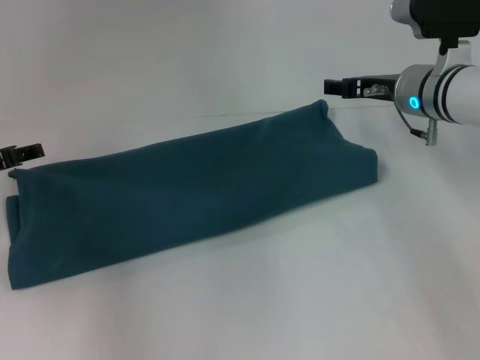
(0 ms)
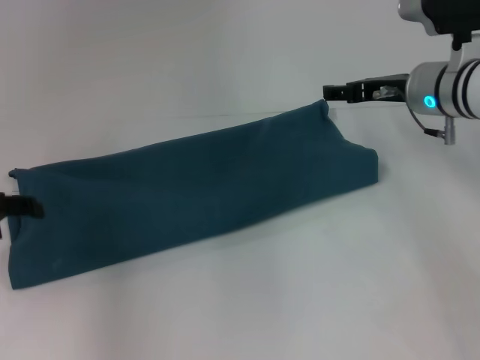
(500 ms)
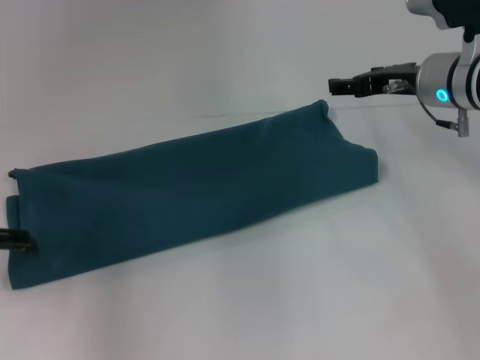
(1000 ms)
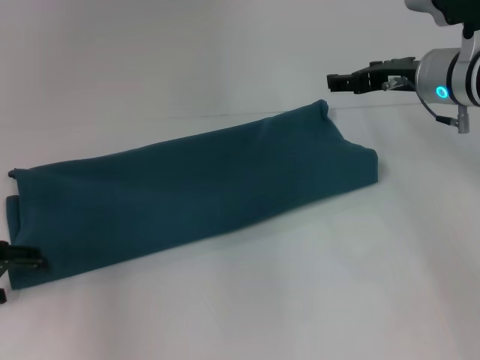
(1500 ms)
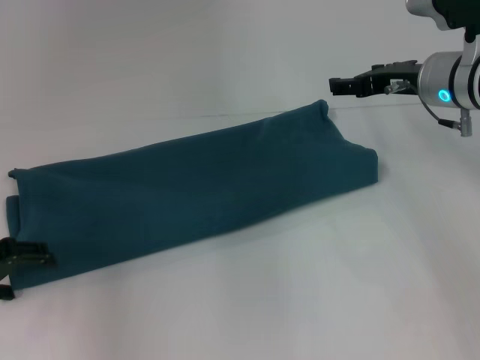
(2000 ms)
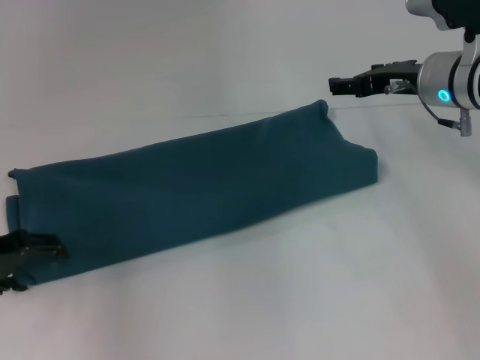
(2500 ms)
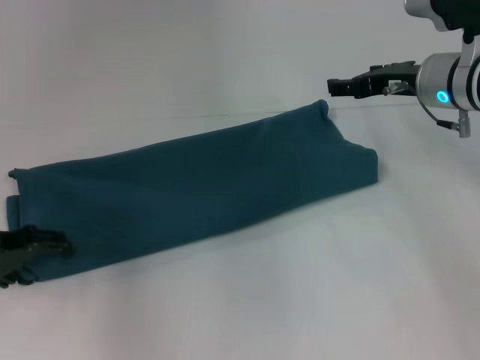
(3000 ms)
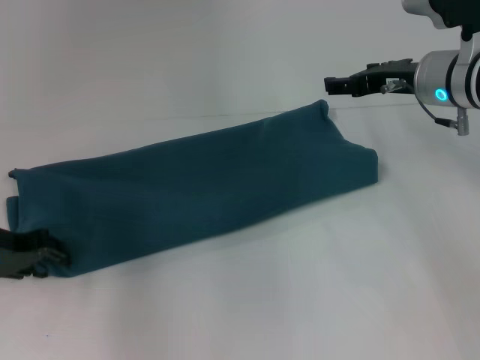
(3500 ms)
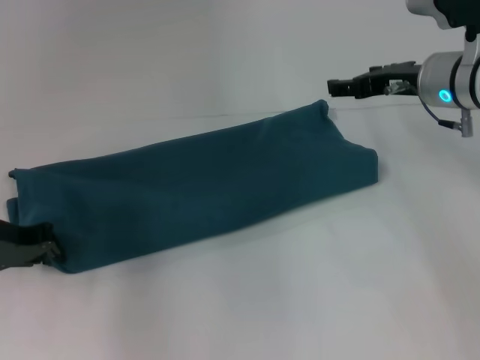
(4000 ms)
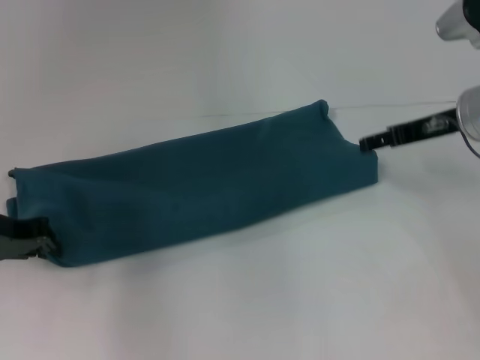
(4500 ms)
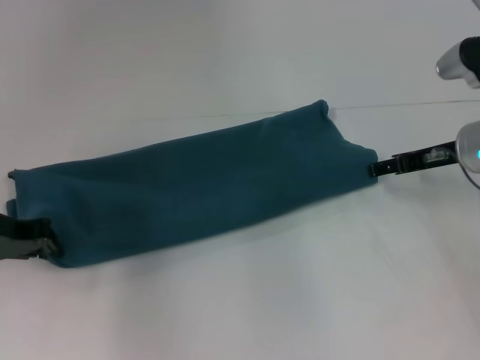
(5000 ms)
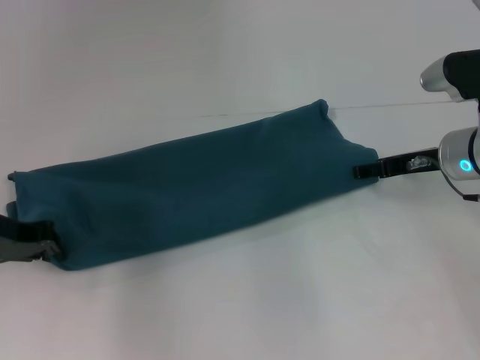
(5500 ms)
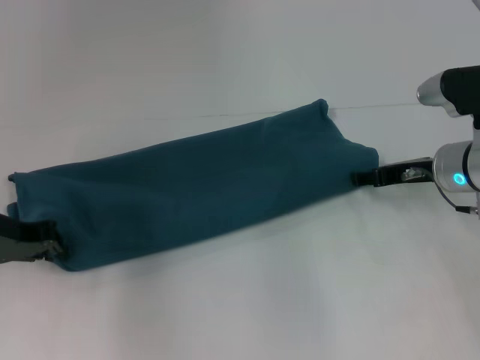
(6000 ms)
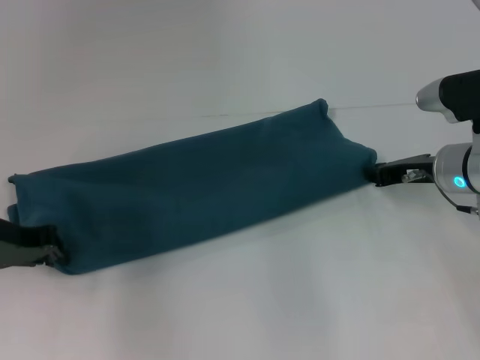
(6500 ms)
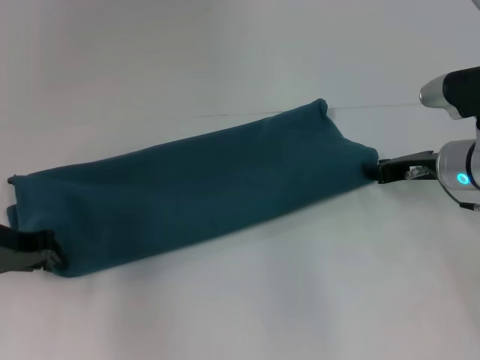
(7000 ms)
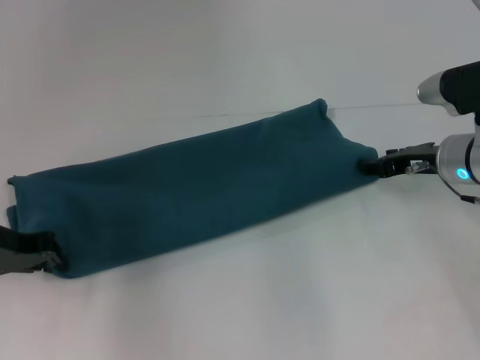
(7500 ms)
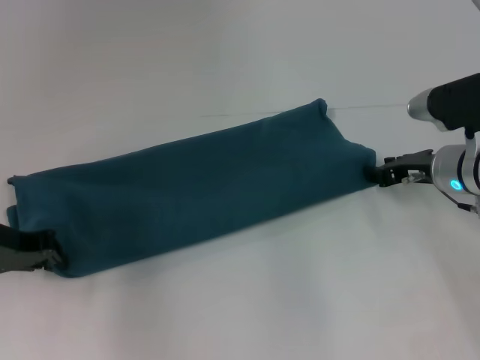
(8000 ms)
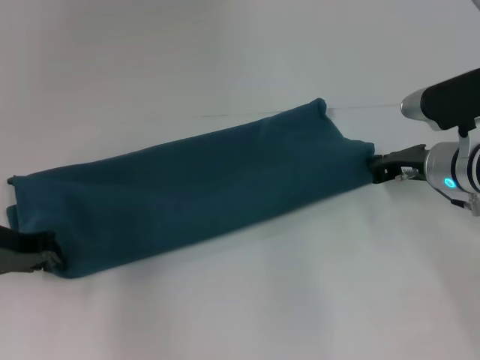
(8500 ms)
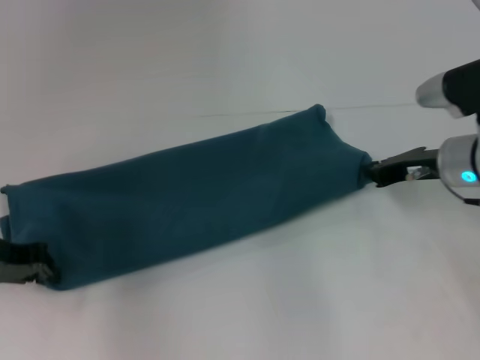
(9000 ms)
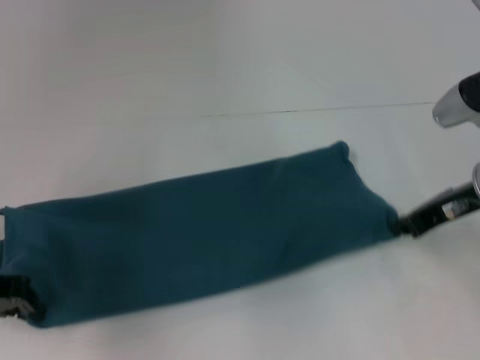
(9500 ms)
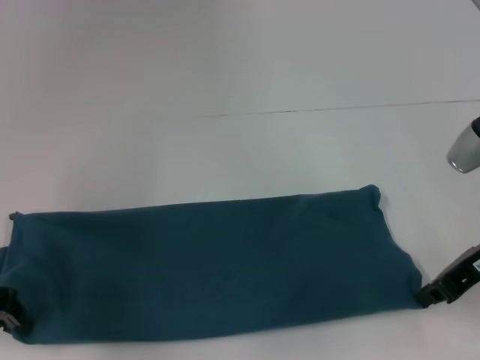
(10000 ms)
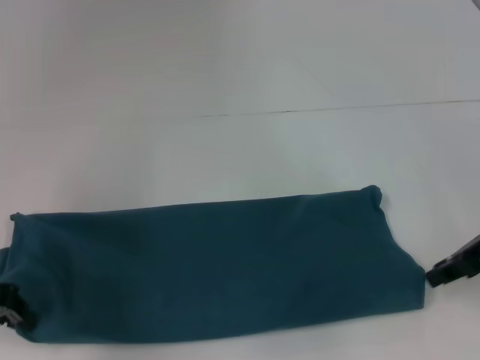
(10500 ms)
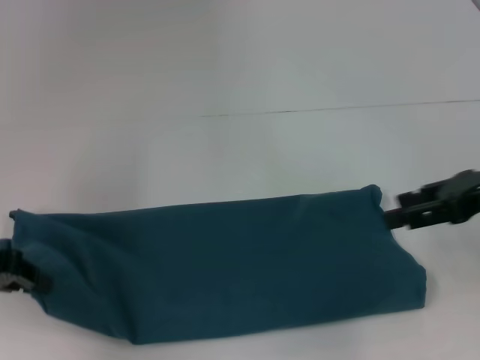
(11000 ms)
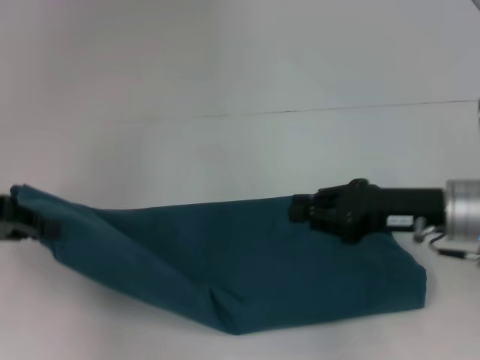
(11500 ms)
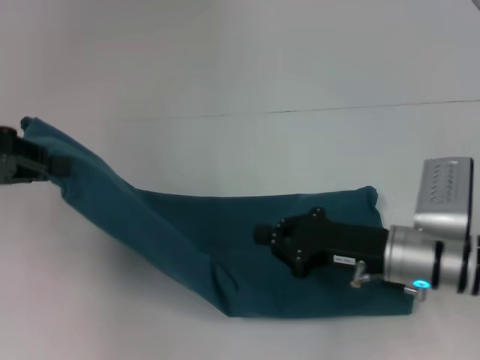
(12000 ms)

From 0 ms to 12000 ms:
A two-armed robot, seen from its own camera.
From 0 ms to 2000 ms: The left gripper shifts approximately 5 cm backward, and opens.
From 2000 ms to 4000 ms: The left gripper closes its fingers.
From 4000 ms to 6000 ms: The right gripper travels downward by roughly 10 cm.
From 6000 ms to 8000 ms: The right gripper closes.
From 8000 ms to 10000 ms: The right gripper heads backward and upward, covering approximately 10 cm, and closes.
From 10000 ms to 12000 ms: The right gripper heads downward and to the left, covering some 10 cm, and opens, then closes again. Meanwhile the left gripper shifts approximately 10 cm upward.

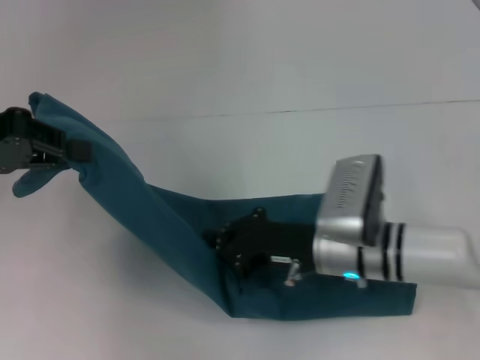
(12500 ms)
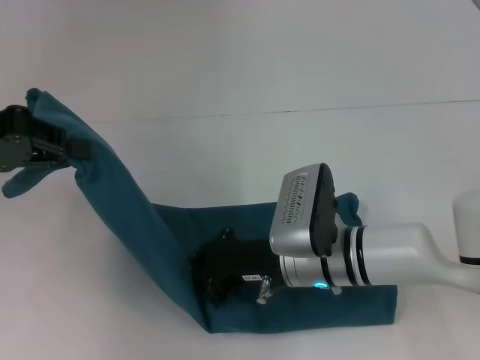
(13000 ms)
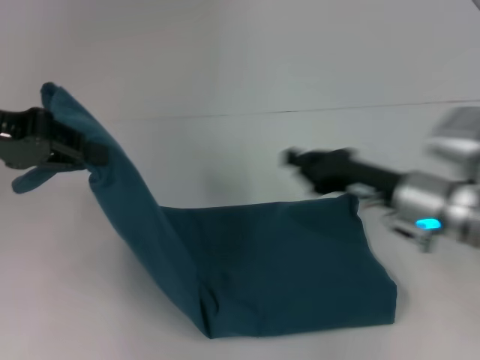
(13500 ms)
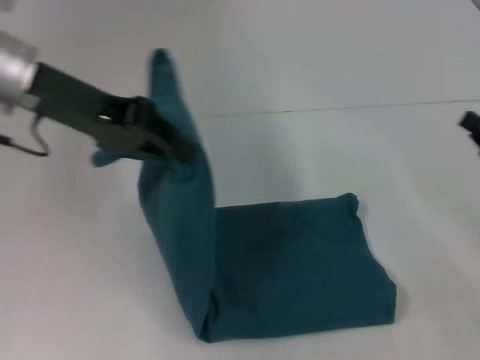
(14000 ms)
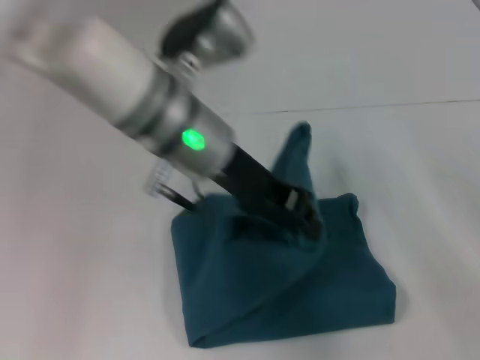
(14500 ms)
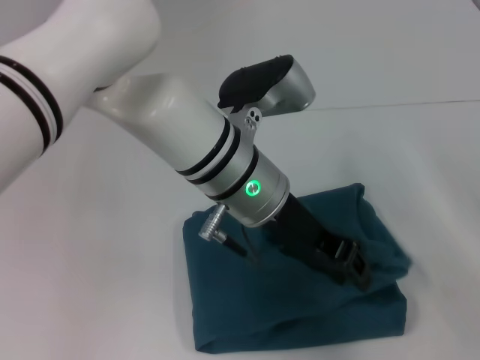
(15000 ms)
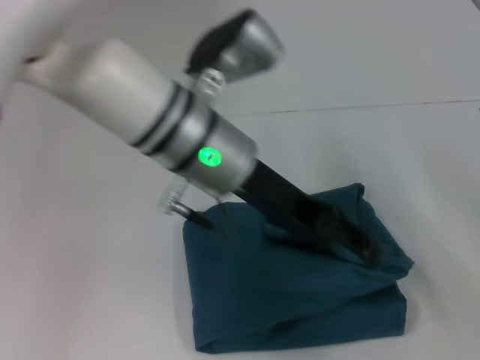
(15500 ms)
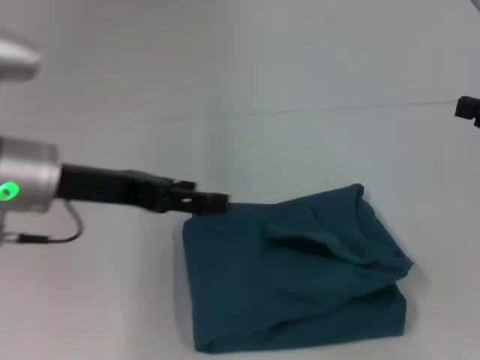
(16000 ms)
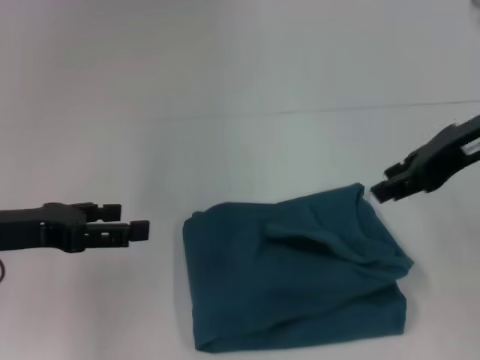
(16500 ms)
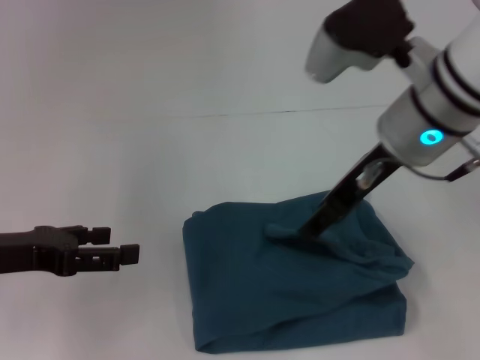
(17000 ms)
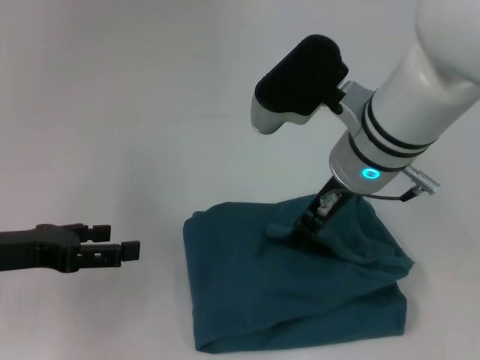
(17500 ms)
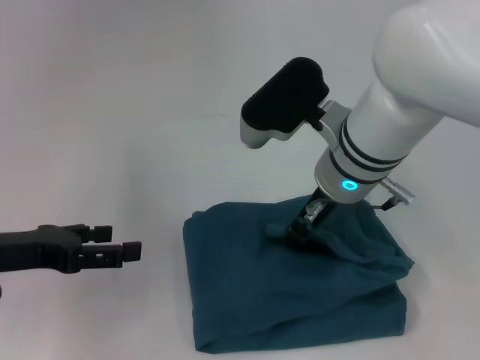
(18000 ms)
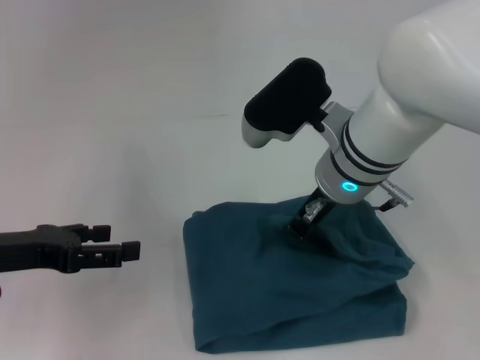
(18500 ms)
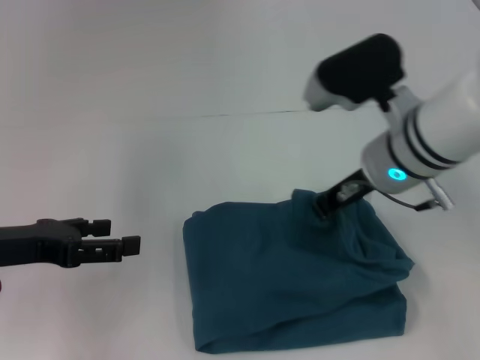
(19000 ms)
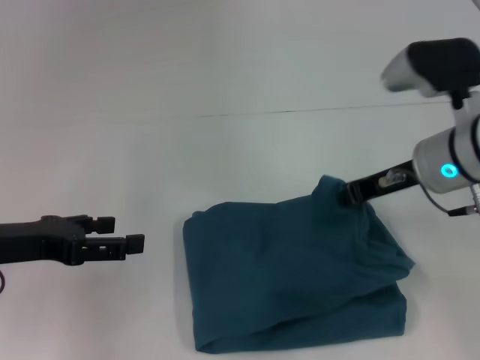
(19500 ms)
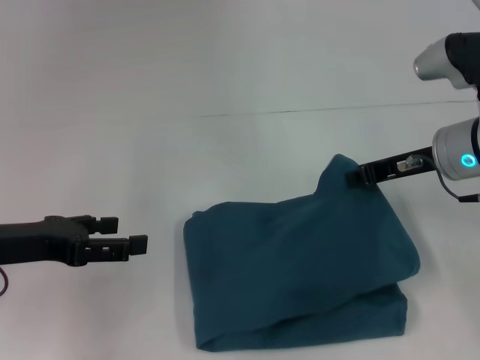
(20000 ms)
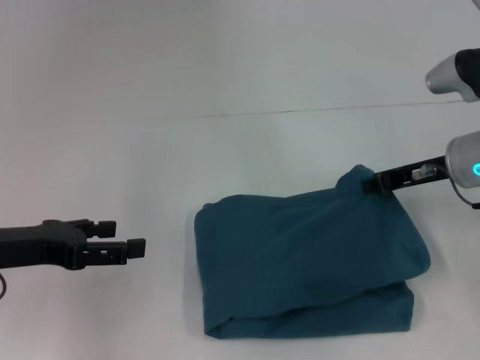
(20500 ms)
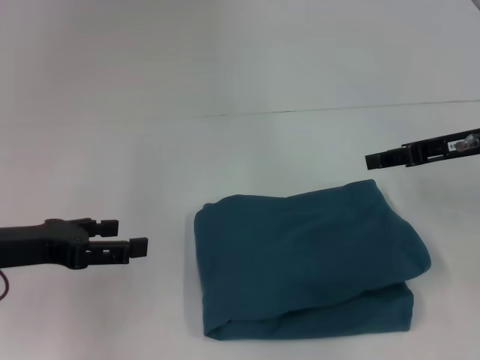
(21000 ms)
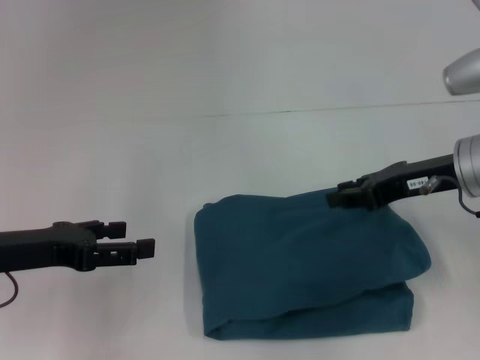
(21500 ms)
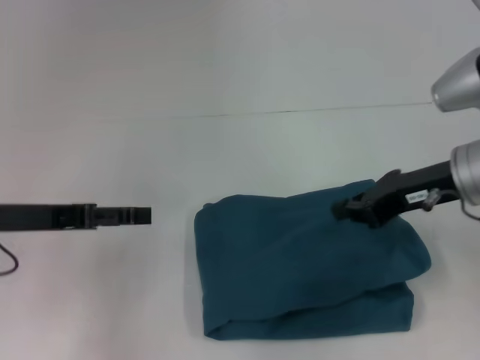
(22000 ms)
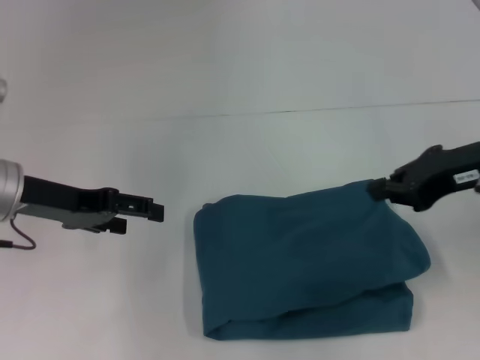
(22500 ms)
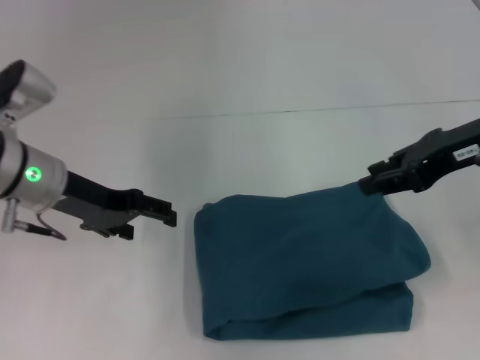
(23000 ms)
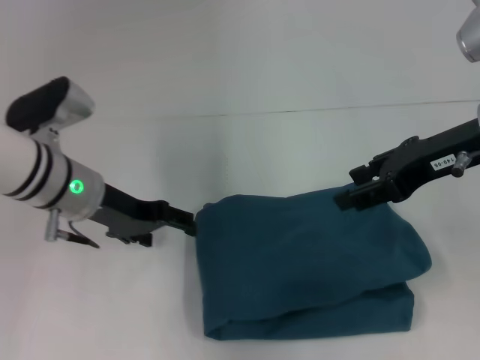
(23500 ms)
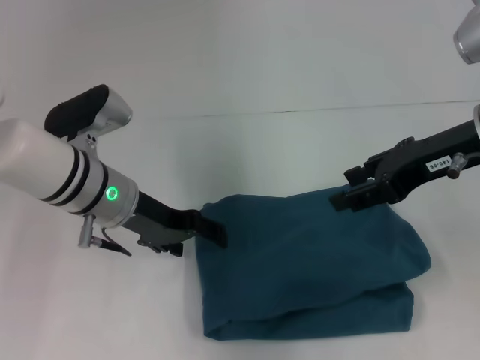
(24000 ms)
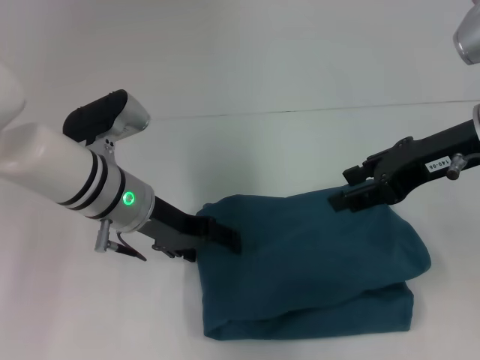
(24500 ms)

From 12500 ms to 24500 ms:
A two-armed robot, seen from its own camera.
Step, from 13500 ms to 15500 ms: Fold the clothes to the left.
From 12500 ms to 14500 ms: The grippers both shift to the right by roughly 25 cm.
From 14500 ms to 16500 ms: The left gripper shifts some 20 cm to the left, and opens; the right gripper shifts approximately 20 cm upward and to the left.
From 16500 ms to 18500 ms: The right gripper goes approximately 20 cm to the left and downward, and opens, then closes again.
From 18500 ms to 20500 ms: The right gripper moves to the right, roughly 15 cm.
From 20500 ms to 22500 ms: The left gripper shifts approximately 5 cm forward. Meanwhile the right gripper heads upward and backward, covering approximately 10 cm, and opens and closes again.
From 22500 ms to 24500 ms: The left gripper travels to the right by about 10 cm, while the right gripper opens up.

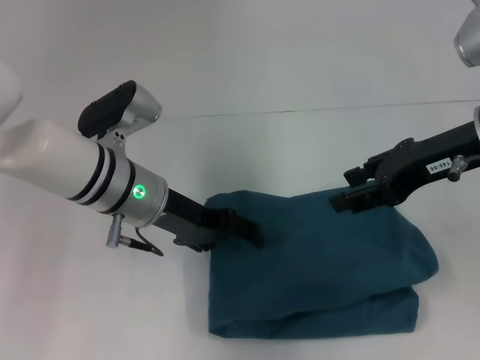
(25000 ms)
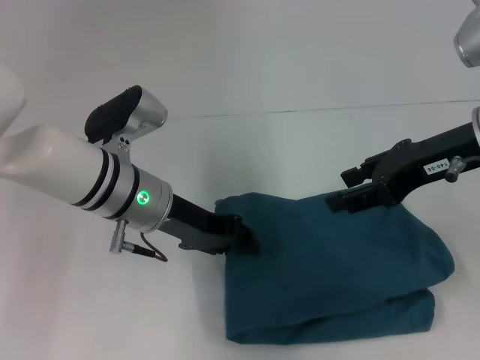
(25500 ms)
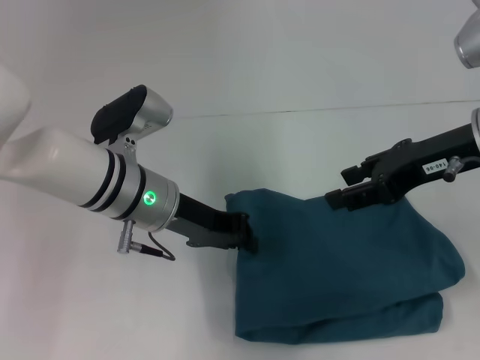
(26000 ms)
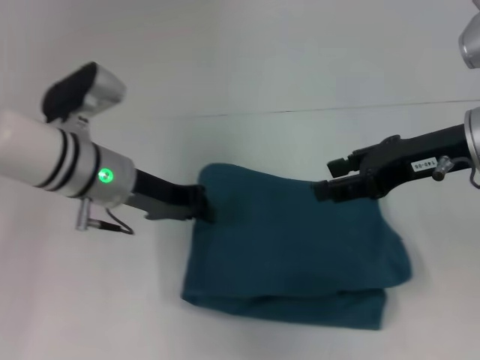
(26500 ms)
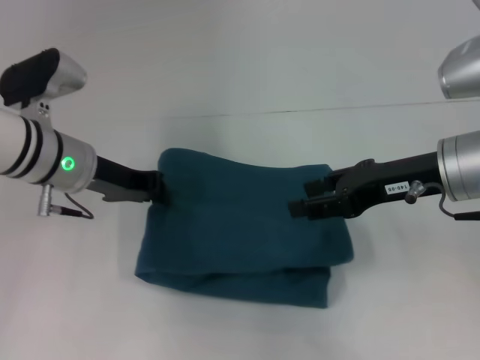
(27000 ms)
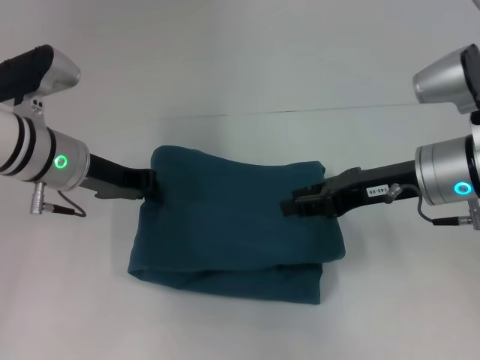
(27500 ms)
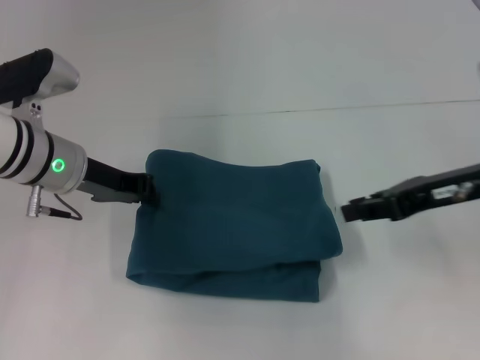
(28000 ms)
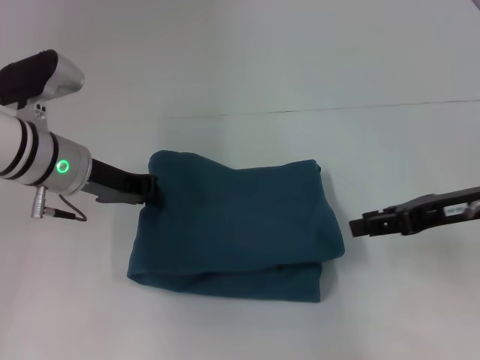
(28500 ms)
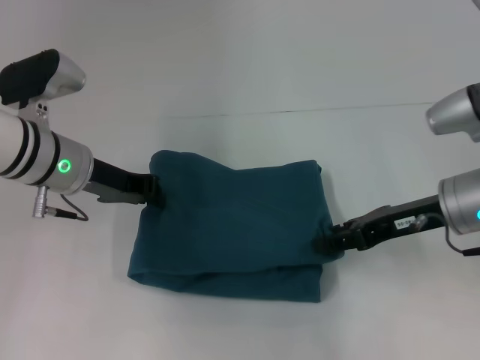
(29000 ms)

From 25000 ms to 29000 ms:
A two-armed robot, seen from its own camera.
From 25000 ms to 27000 ms: The right gripper shifts by approximately 5 cm. The left gripper shifts approximately 5 cm to the left, and closes up.
From 27000 ms to 29000 ms: The right gripper moves roughly 5 cm.
